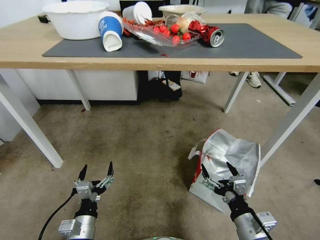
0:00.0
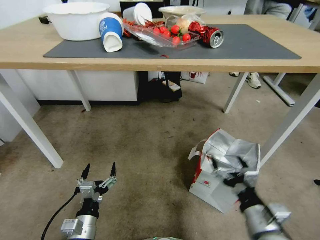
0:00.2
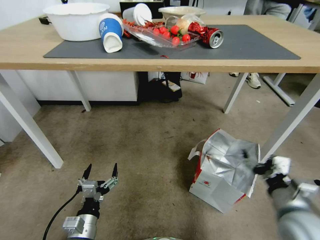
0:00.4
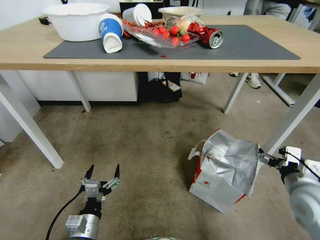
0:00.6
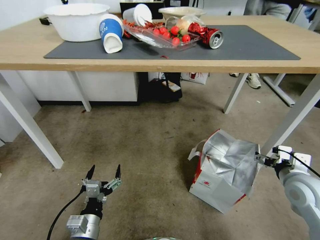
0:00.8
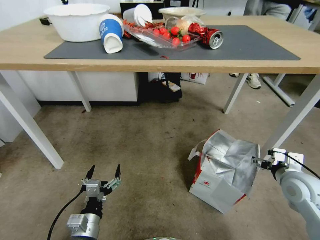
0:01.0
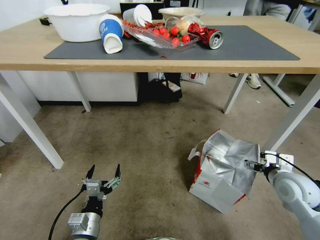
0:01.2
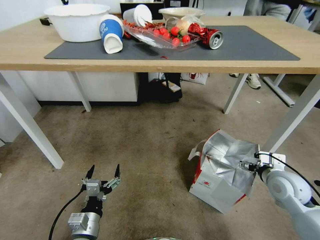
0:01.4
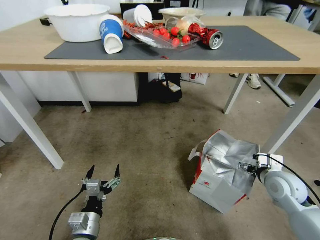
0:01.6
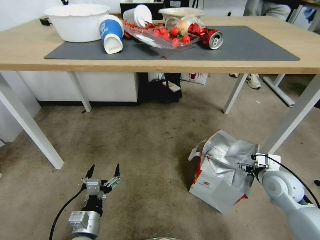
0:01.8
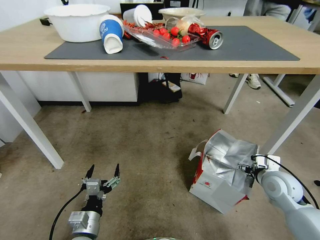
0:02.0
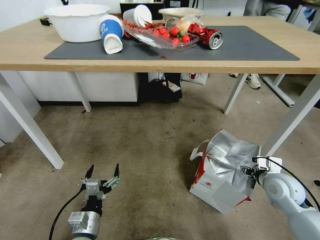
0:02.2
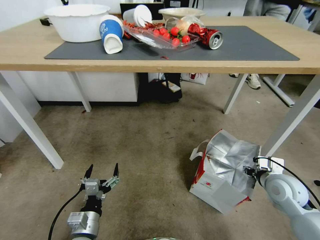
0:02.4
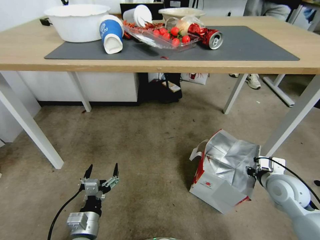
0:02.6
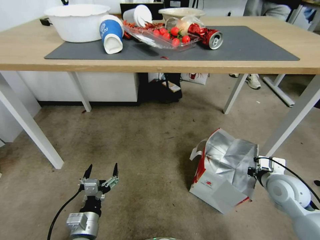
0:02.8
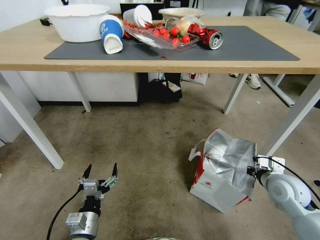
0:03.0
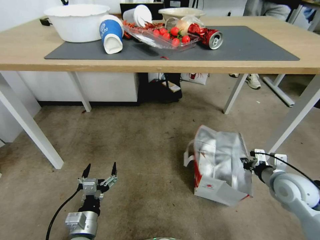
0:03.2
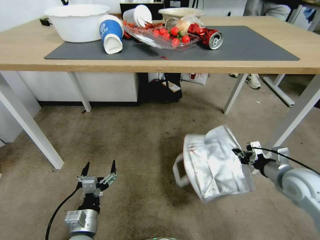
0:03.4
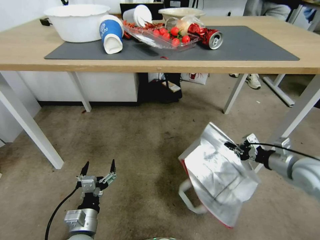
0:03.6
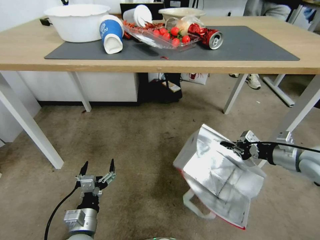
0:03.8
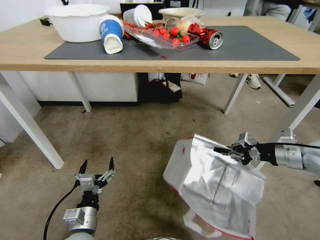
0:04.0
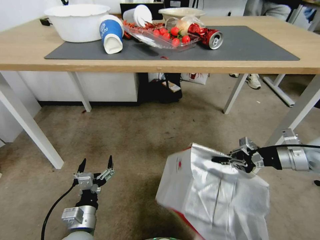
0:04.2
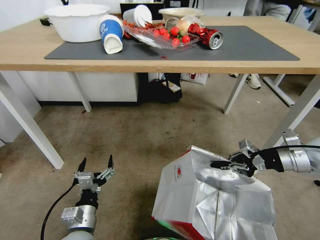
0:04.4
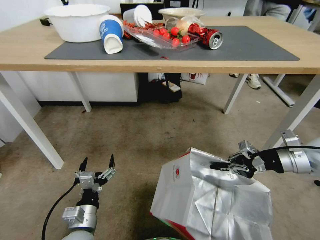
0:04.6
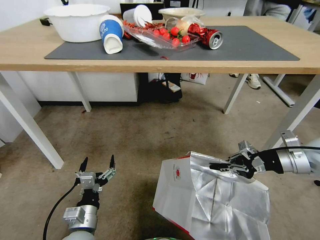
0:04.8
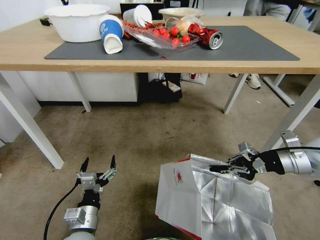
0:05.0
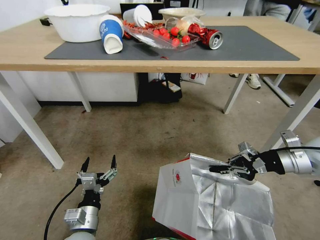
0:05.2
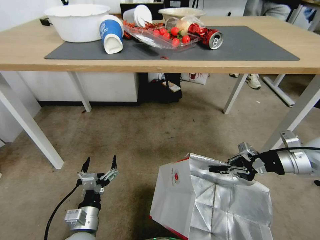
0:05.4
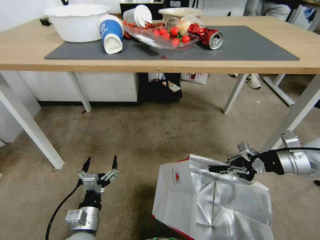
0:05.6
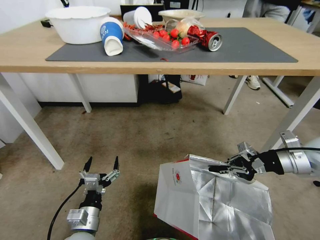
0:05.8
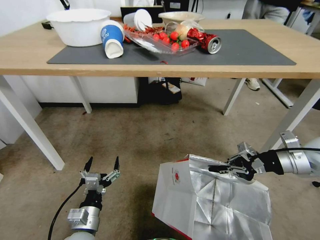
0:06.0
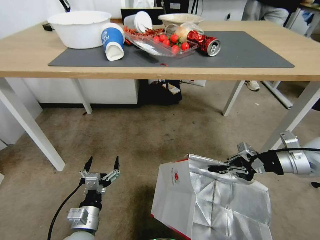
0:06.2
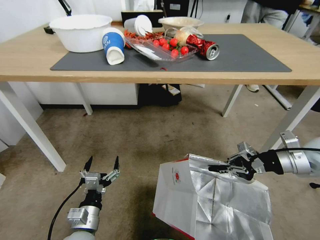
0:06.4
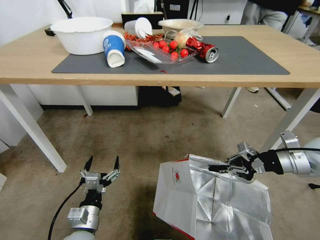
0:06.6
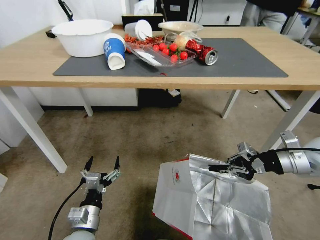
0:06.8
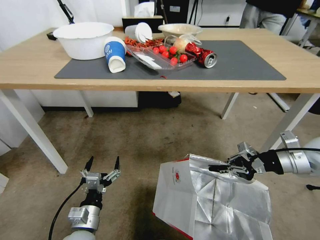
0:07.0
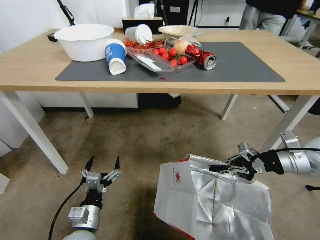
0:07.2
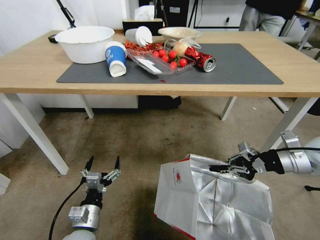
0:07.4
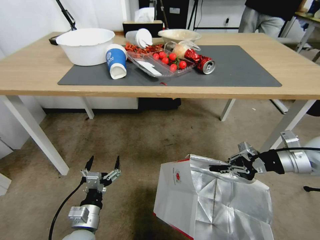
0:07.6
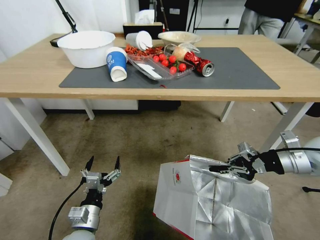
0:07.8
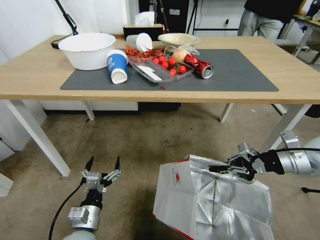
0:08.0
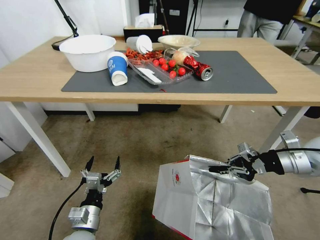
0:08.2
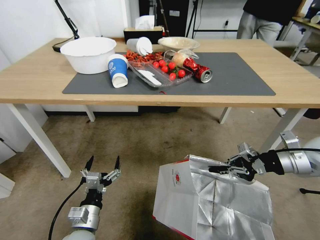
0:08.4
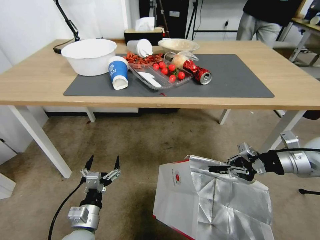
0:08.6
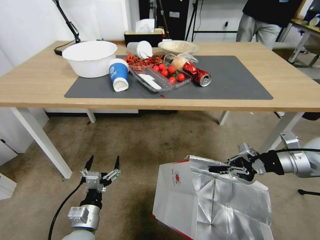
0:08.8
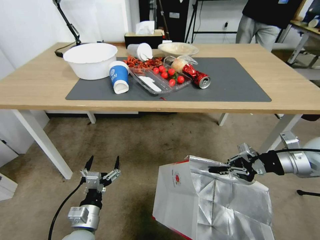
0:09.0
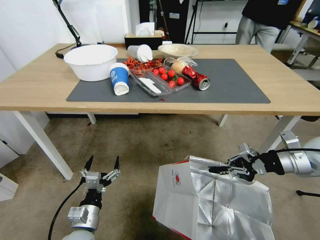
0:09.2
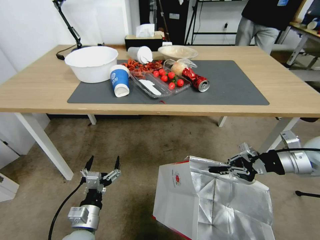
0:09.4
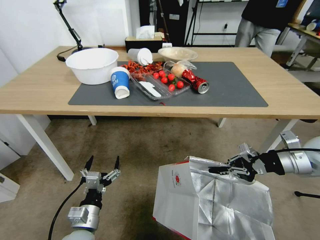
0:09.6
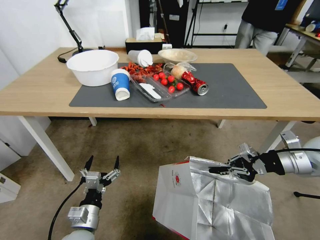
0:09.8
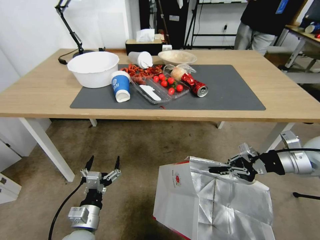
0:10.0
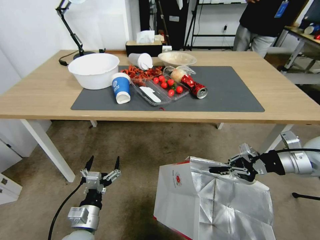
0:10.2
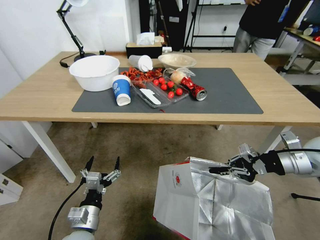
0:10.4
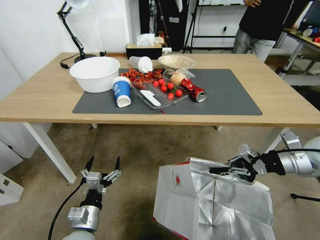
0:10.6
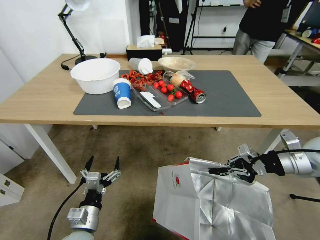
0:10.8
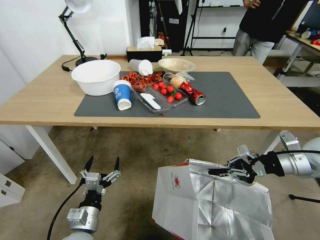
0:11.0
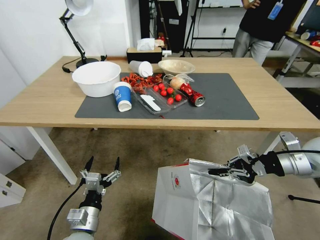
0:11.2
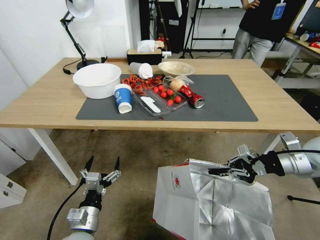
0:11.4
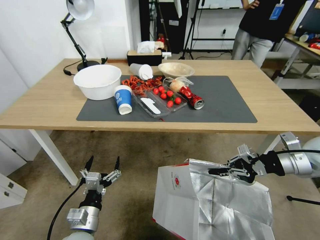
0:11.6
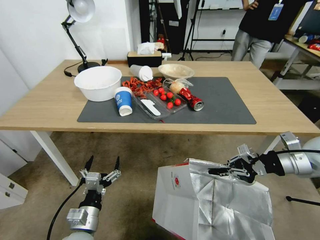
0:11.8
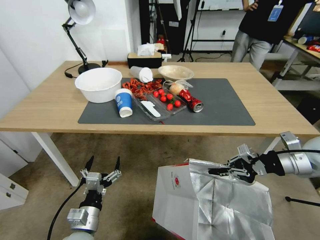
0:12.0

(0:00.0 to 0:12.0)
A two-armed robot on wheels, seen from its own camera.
Task of the whole recording: Pick up the food delivery bag from the floor and place it on the table.
0:00.0 - 0:01.6: The right gripper is displaced forward and to the right by roughly 20 cm.
0:01.6 - 0:03.0: The right gripper closes up.
0:03.0 - 0:04.4: The right gripper heads upward, covering approximately 15 cm.

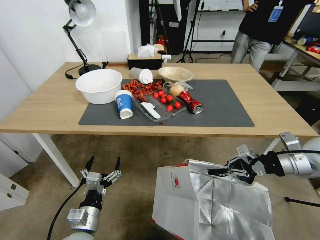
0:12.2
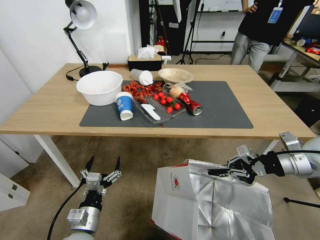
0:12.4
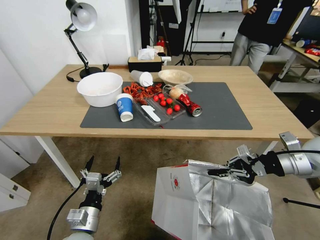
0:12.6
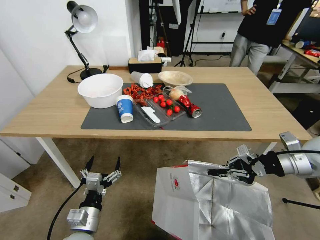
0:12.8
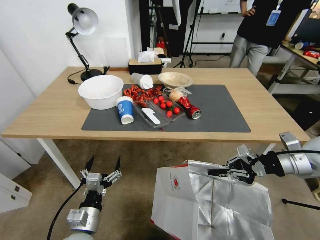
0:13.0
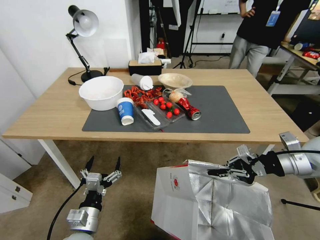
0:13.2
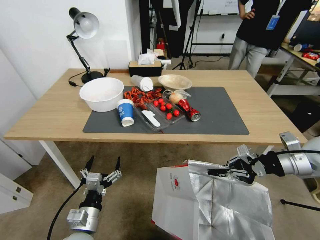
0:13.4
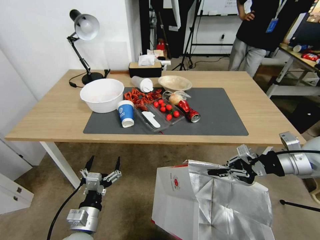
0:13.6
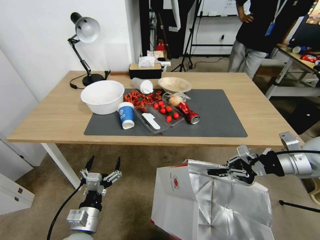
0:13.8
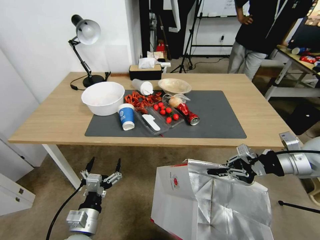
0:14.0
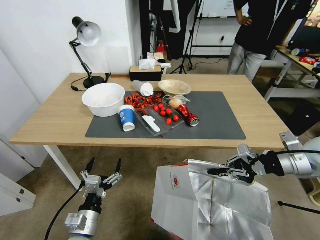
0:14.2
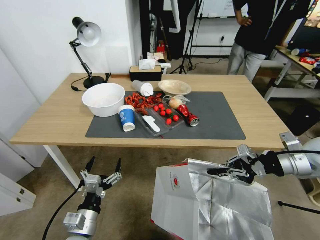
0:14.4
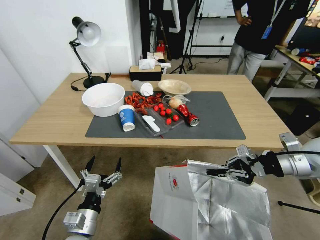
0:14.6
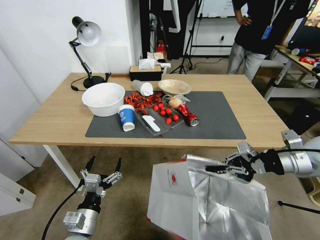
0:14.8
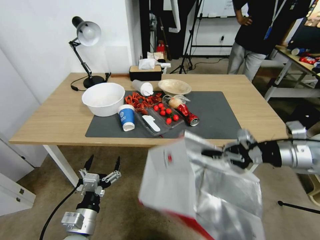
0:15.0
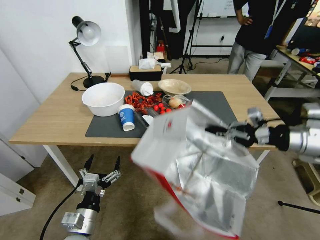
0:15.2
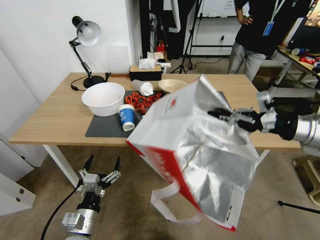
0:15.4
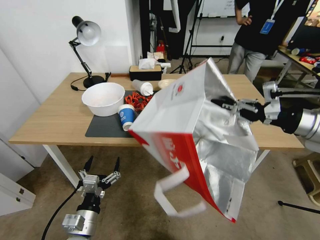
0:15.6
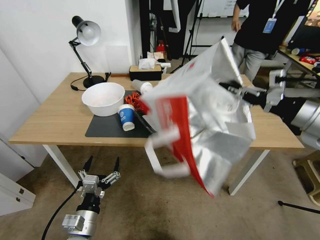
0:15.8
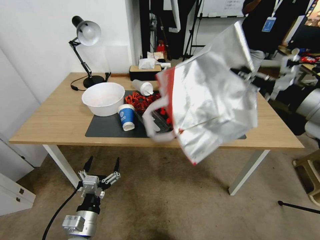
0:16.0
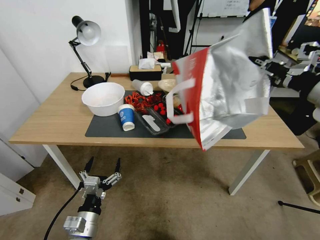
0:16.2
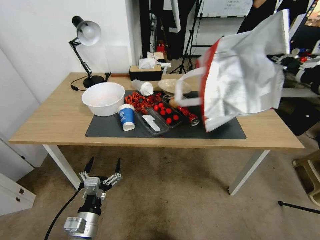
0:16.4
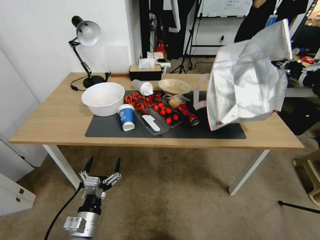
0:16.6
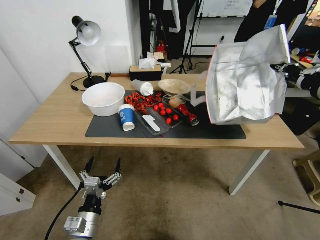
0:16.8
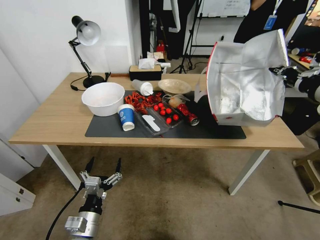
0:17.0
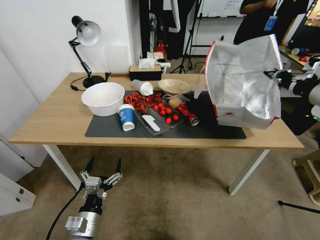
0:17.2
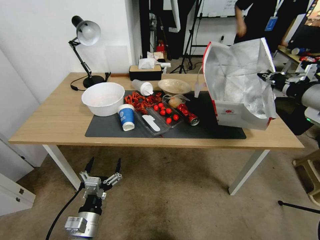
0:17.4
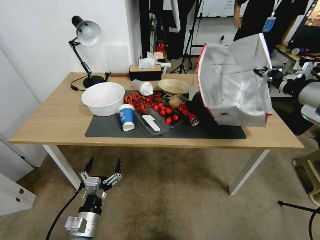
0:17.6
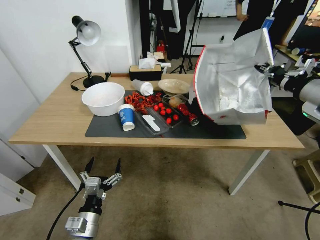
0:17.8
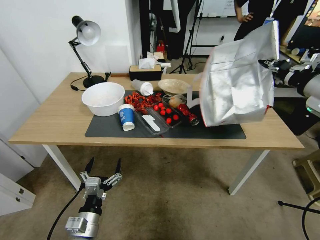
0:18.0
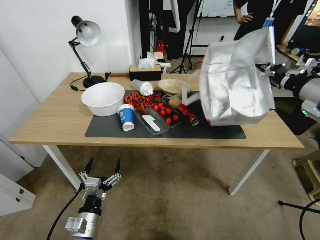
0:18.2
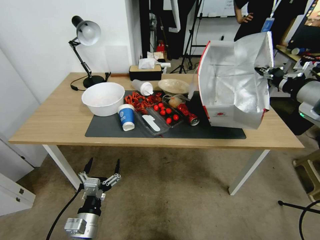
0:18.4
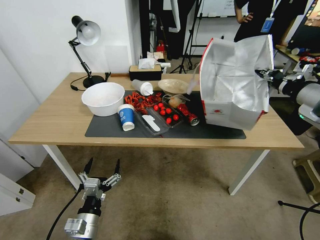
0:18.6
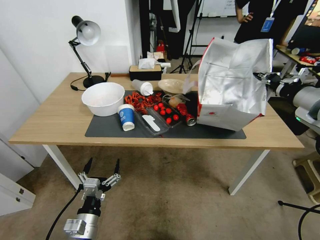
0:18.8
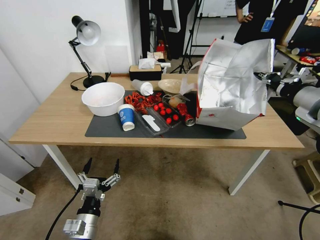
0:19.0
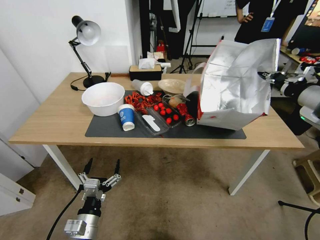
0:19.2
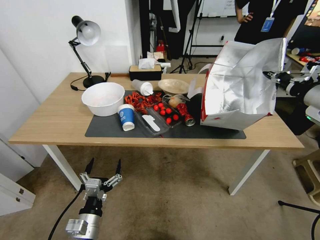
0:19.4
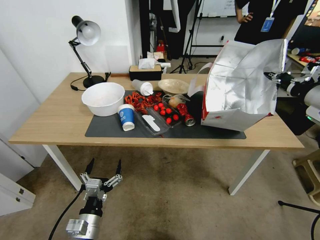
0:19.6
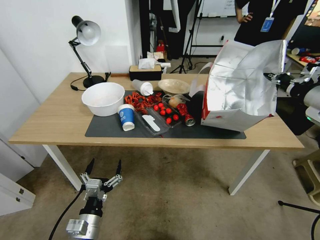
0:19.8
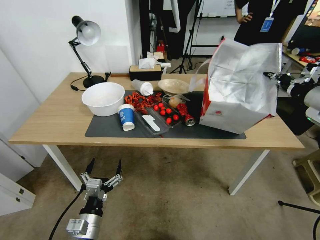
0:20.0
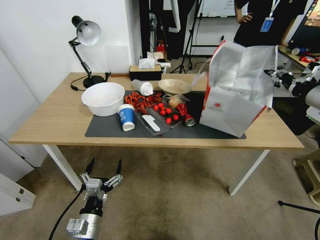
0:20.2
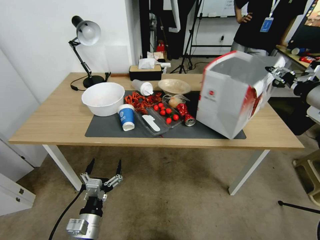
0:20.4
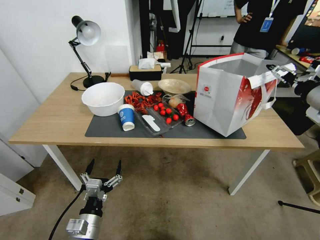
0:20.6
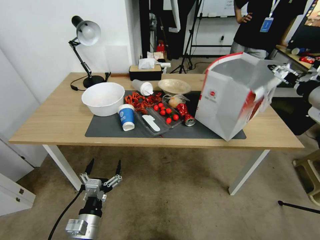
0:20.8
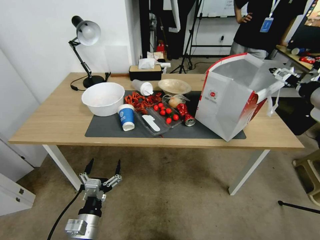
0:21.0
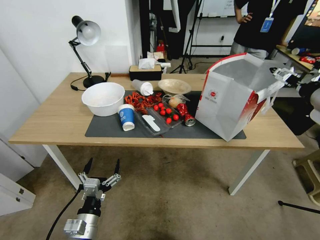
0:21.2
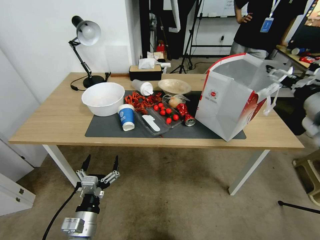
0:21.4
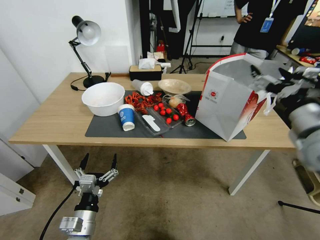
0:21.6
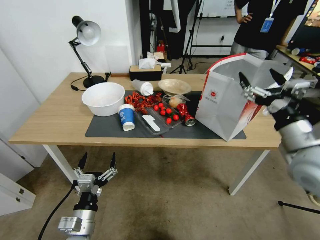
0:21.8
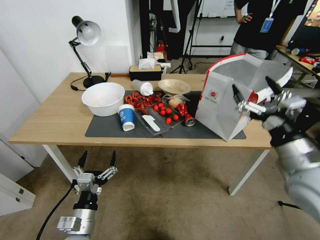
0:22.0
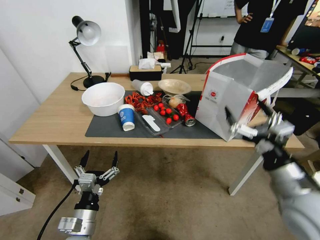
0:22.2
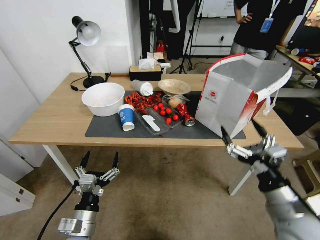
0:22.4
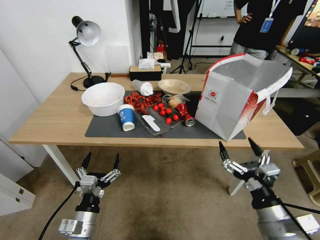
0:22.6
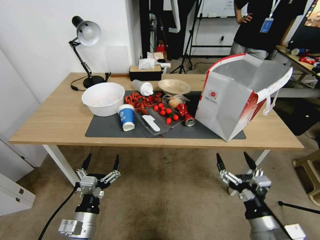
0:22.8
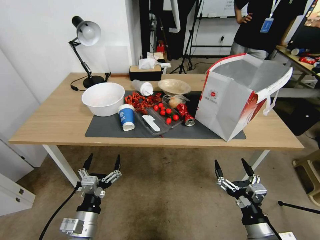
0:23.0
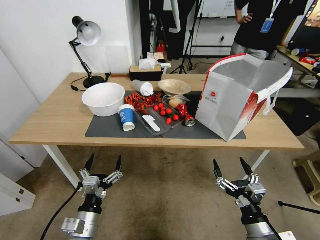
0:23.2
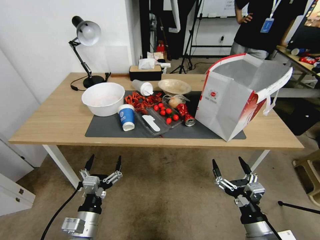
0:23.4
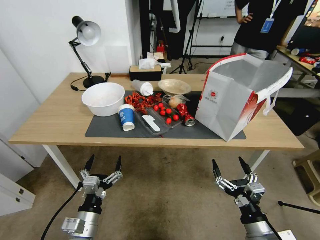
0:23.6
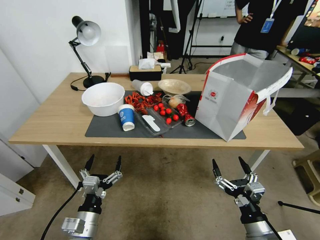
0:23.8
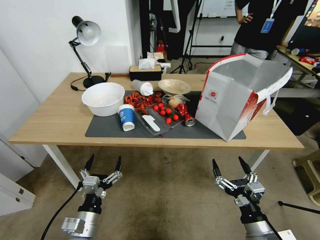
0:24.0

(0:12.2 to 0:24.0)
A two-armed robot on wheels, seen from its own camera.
Task of the whole recording: Pick up the food delivery bag from the floor and place it on the table.
0:13.6 - 0:15.2: The right gripper travels upward by approximately 5 cm.
0:15.2 - 0:16.6: The right gripper shifts approximately 10 cm upward.
0:16.6 - 0:18.2: The grippers move only a little.
0:18.2 - 0:19.6: The grippers stay close to where they were, moving slightly.
0:19.6 - 0:21.0: The right gripper opens.
0:21.0 - 0:22.6: The right gripper travels downward, backward and to the left by about 35 cm.
0:22.6 - 0:24.0: The right gripper travels downward by approximately 5 cm.
